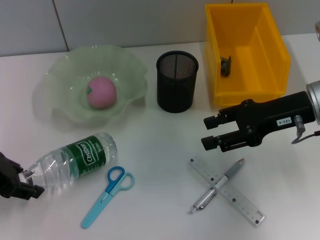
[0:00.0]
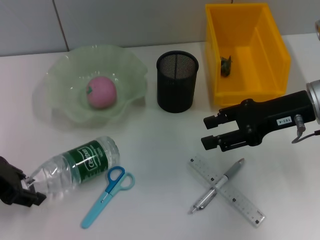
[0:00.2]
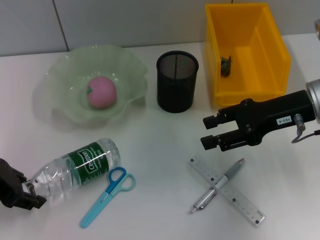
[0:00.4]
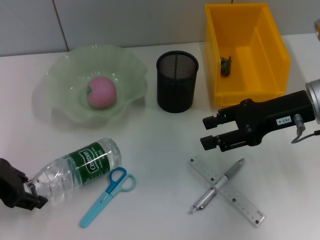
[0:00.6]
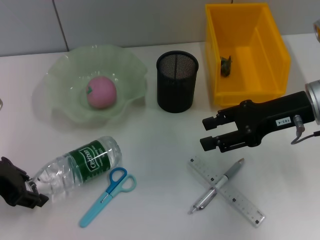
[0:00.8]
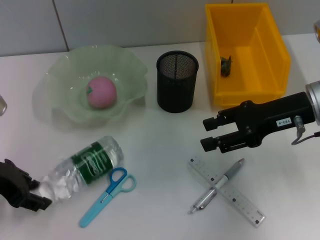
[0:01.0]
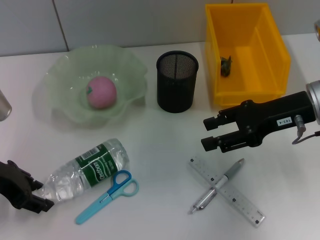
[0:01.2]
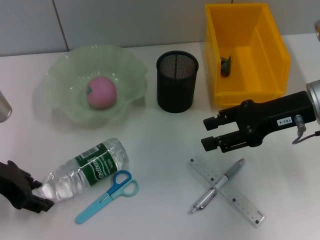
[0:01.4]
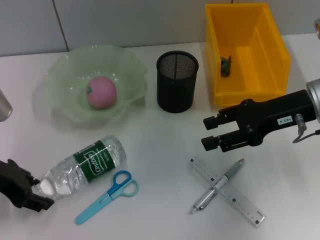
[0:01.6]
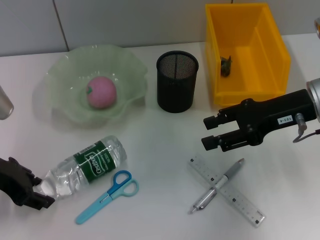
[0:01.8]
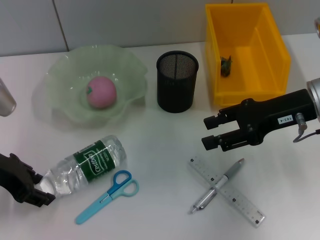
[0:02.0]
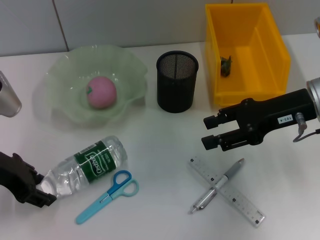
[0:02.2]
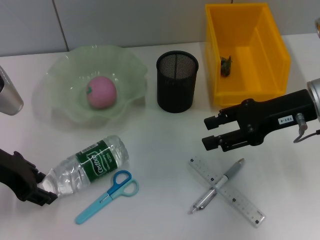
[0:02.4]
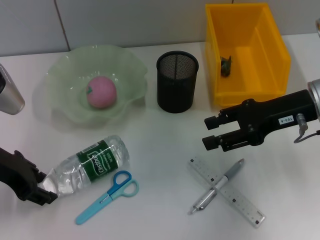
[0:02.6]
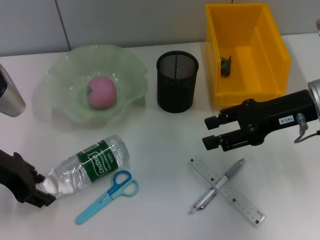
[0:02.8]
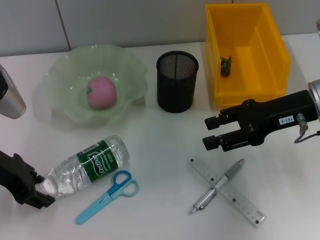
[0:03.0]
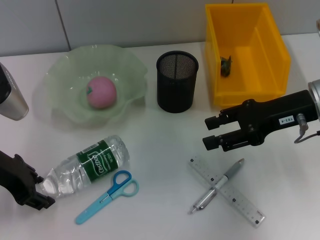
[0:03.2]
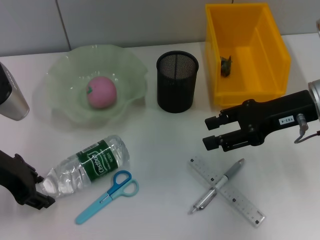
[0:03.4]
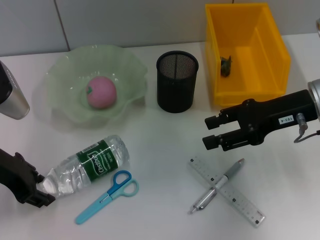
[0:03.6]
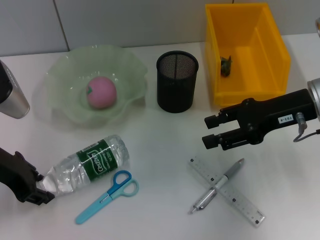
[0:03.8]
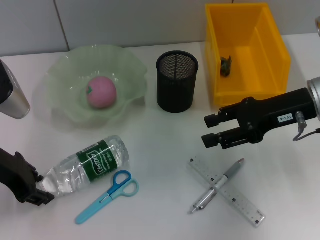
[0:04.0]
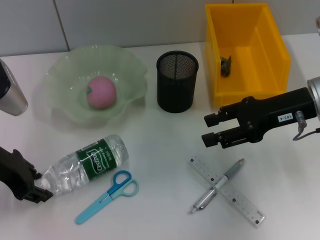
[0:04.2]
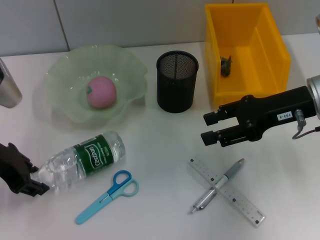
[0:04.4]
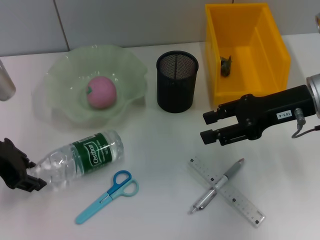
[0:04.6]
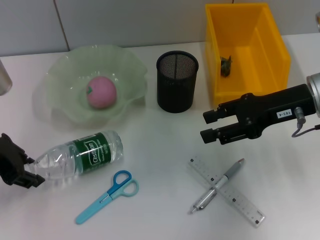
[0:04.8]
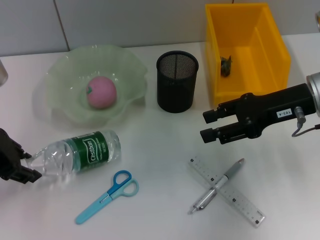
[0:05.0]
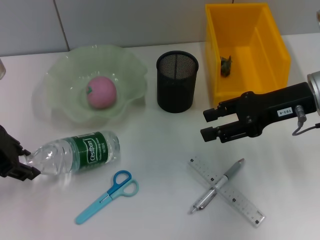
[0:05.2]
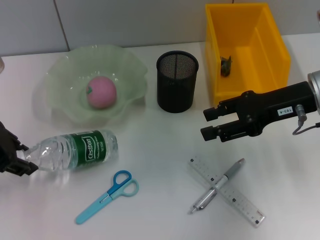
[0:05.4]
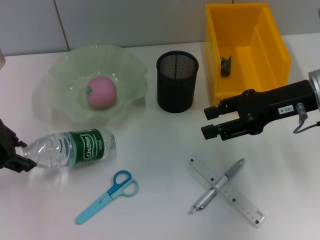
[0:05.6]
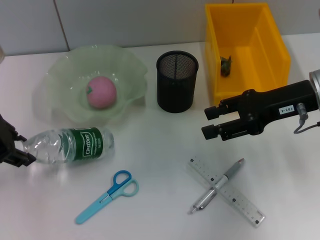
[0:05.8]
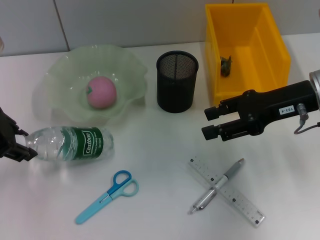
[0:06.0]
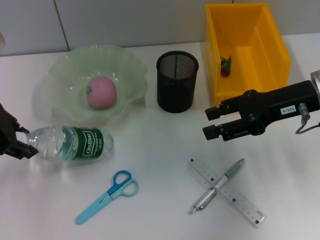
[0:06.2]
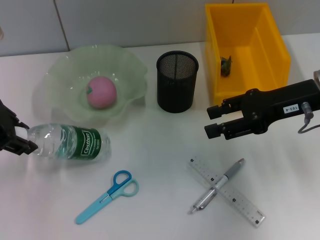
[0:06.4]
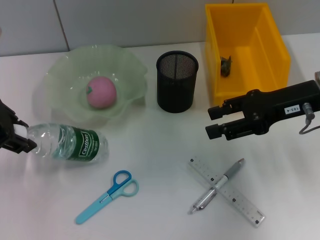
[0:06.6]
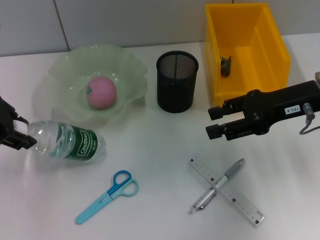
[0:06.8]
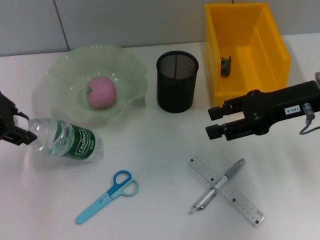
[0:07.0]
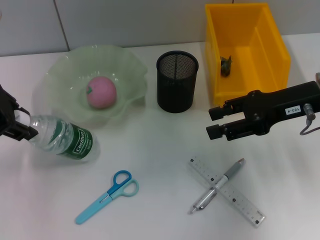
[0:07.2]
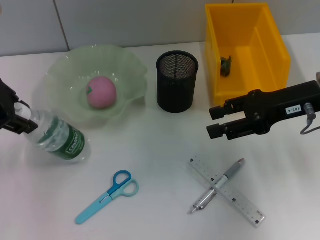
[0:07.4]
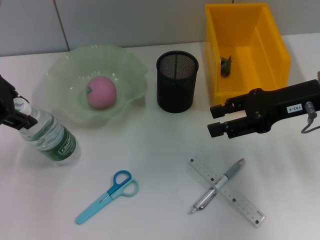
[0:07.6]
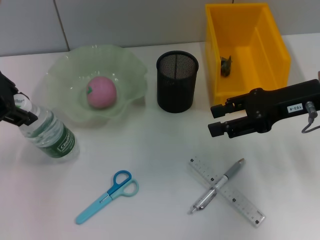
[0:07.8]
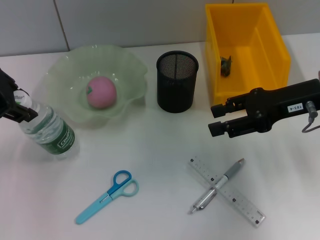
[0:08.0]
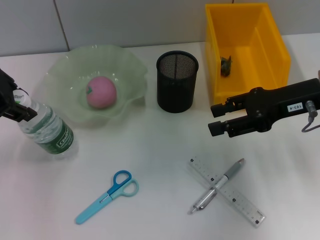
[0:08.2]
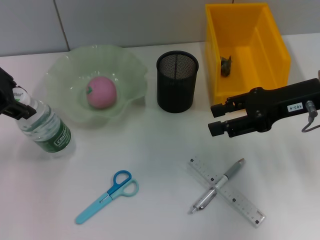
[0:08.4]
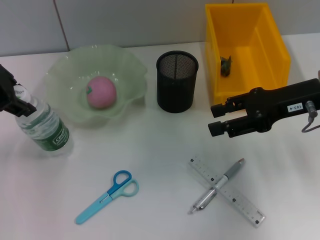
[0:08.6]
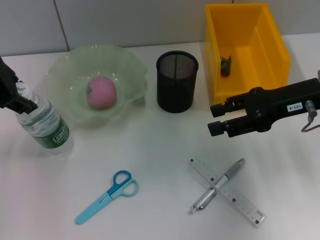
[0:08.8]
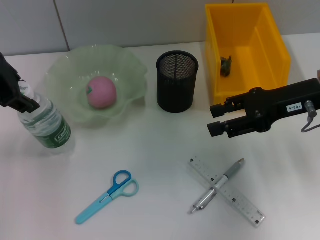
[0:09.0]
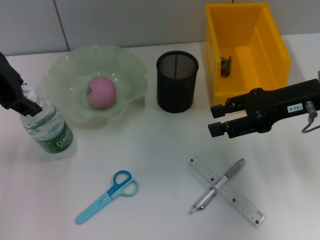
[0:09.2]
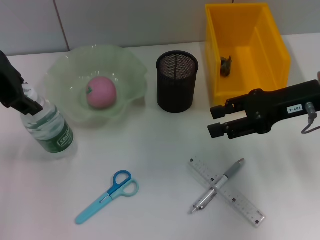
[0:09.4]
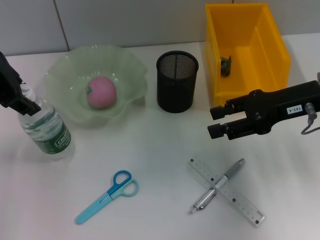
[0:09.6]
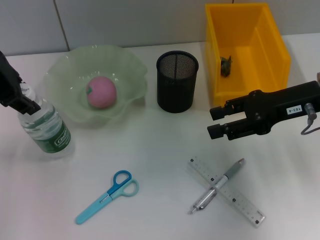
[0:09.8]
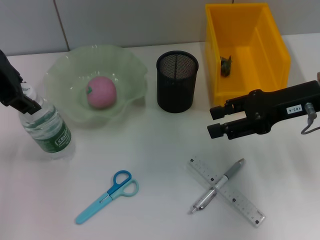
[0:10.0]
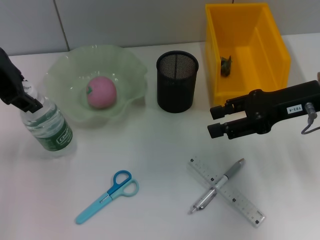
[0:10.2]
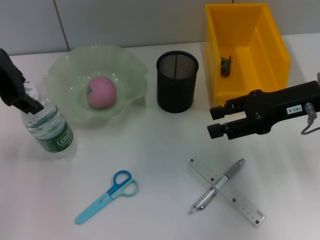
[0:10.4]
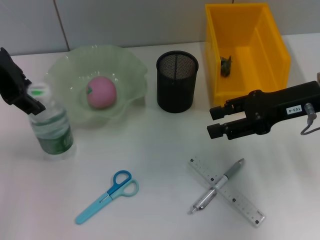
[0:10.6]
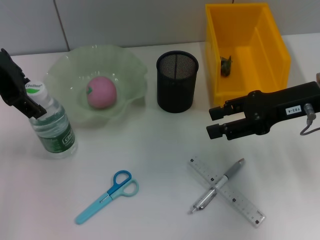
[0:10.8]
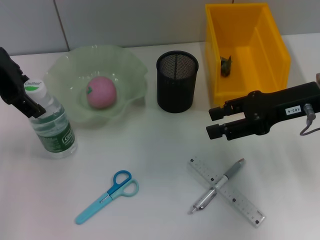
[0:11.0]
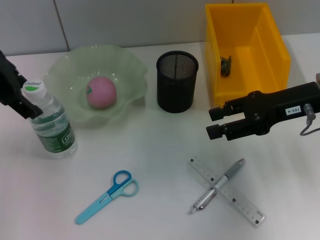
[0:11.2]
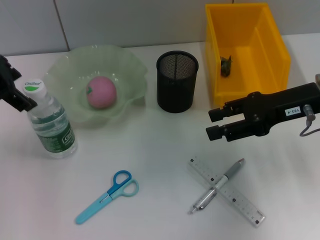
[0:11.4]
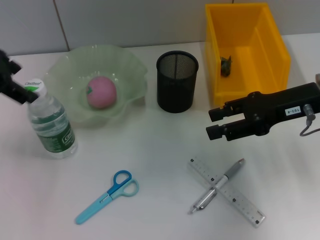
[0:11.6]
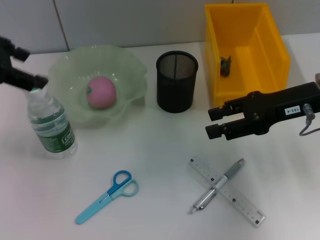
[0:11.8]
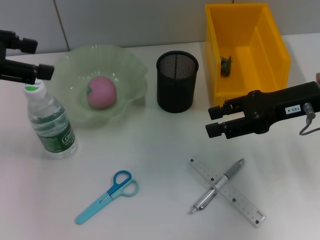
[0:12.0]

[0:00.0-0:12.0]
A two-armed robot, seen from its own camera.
Step, 0:00.0 to 0:04.4: Grab the water bottle with the left hand.
Step, 0:04.8 to 0:11.2: Place the water bottle on the table with the left hand.
0:00.0 to 0:04.4: The grippers make only small movements.
0:04.4 to 0:06.0: The left gripper heads upward, covering about 5 cm.
0:06.0 to 0:07.6: There are only small adjustments of the grippers.
0:07.6 to 0:09.0: The grippers make only small movements.
0:09.0 to 0:10.4: Both grippers stay put.
0:10.4 to 0:12.0: The left gripper shifts roughly 10 cm to the left, and opens.

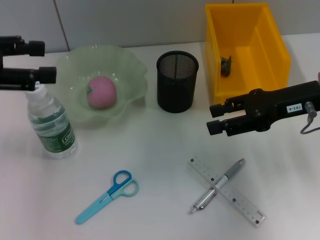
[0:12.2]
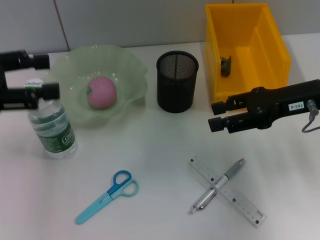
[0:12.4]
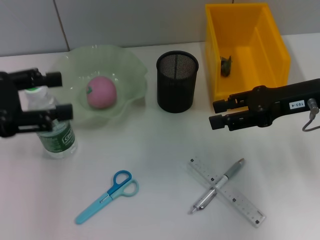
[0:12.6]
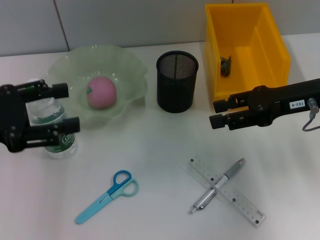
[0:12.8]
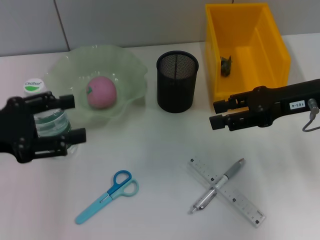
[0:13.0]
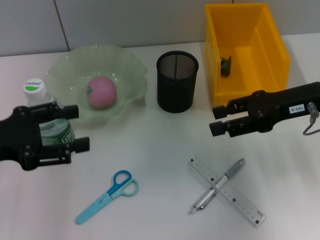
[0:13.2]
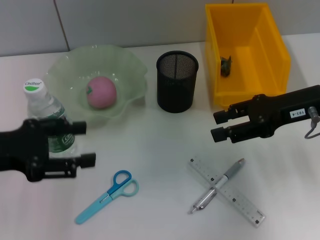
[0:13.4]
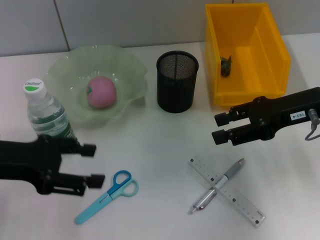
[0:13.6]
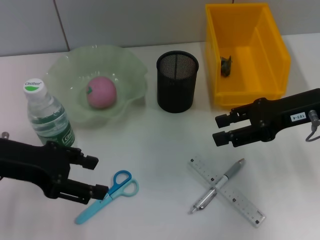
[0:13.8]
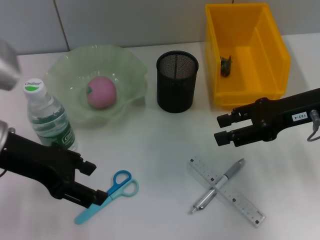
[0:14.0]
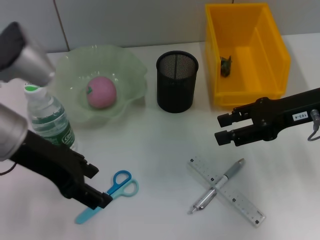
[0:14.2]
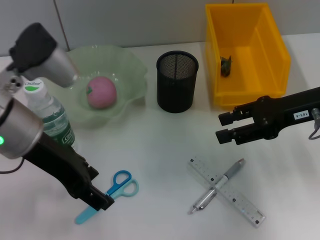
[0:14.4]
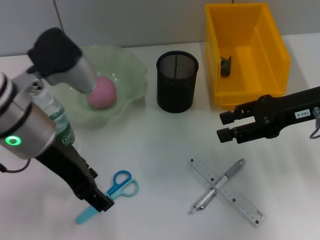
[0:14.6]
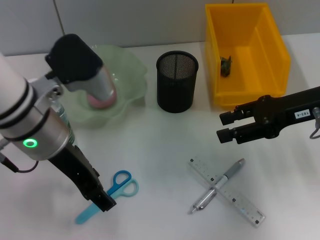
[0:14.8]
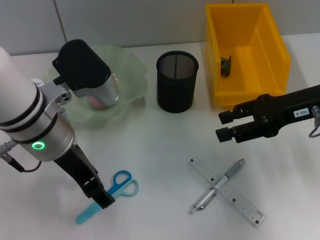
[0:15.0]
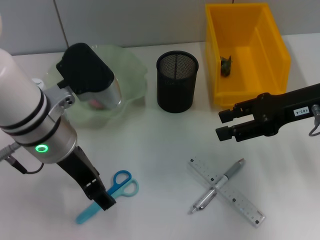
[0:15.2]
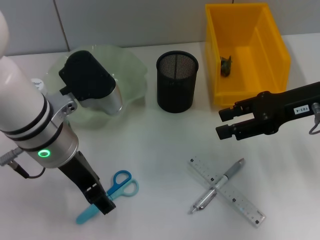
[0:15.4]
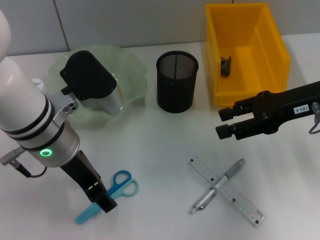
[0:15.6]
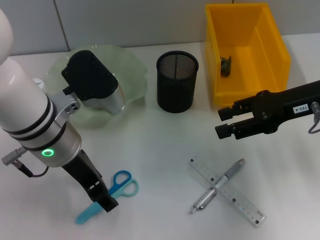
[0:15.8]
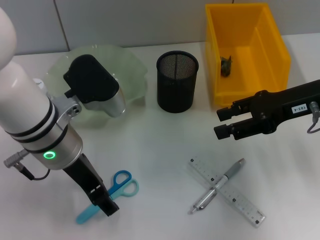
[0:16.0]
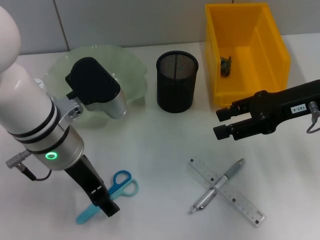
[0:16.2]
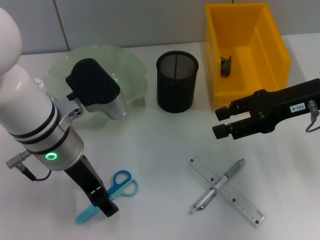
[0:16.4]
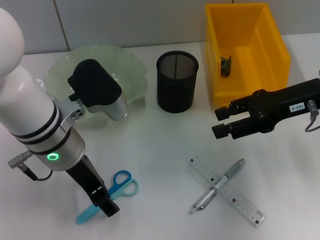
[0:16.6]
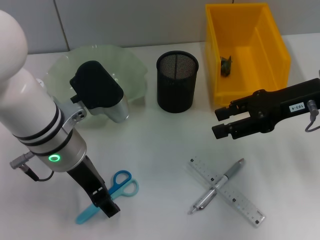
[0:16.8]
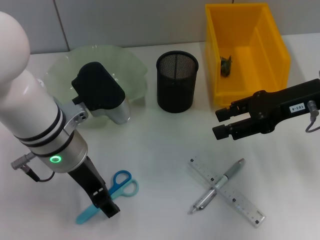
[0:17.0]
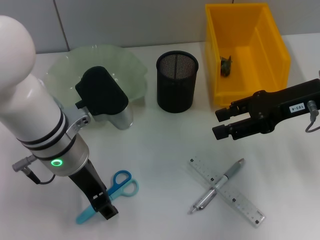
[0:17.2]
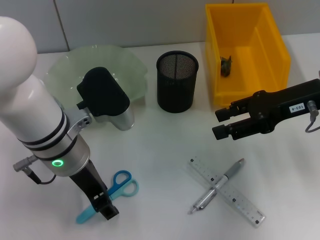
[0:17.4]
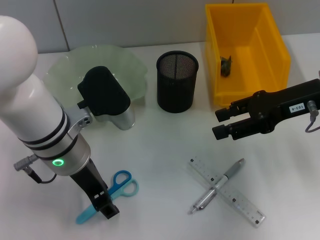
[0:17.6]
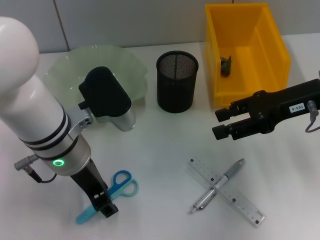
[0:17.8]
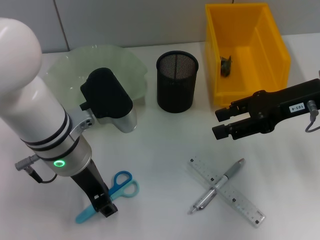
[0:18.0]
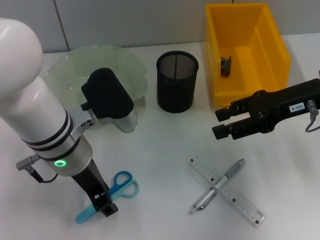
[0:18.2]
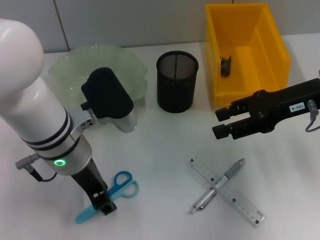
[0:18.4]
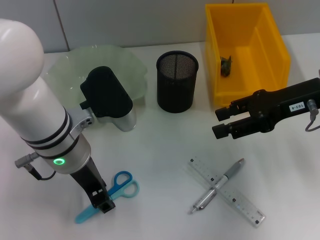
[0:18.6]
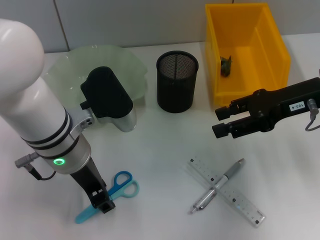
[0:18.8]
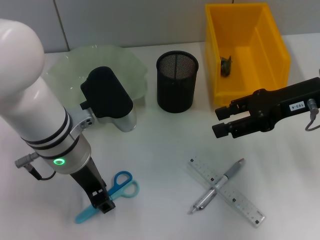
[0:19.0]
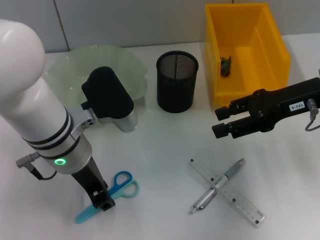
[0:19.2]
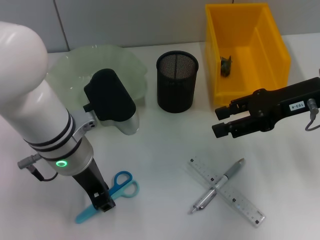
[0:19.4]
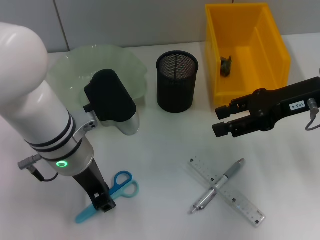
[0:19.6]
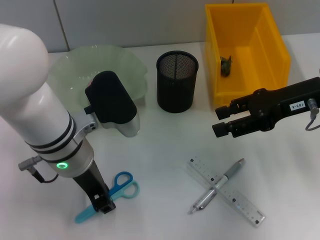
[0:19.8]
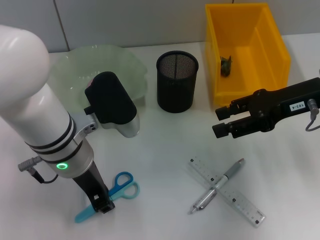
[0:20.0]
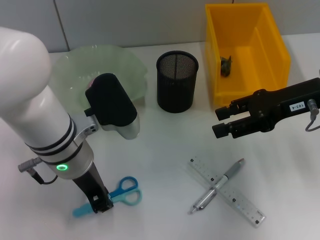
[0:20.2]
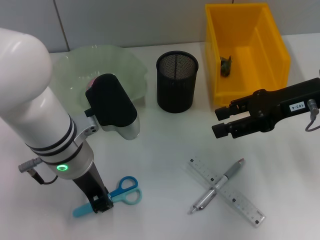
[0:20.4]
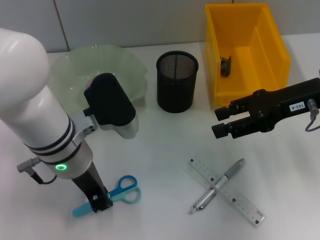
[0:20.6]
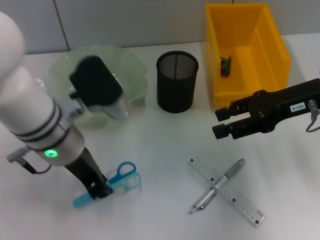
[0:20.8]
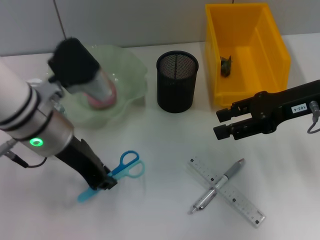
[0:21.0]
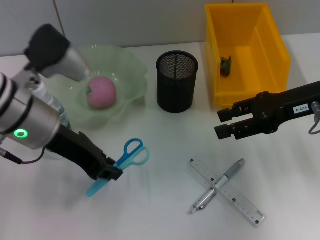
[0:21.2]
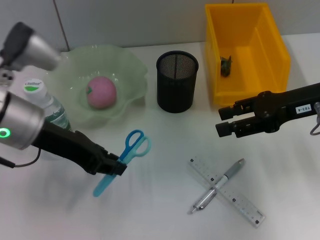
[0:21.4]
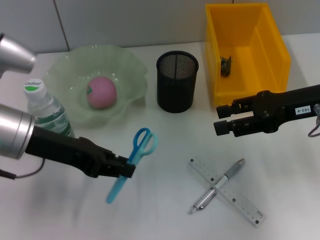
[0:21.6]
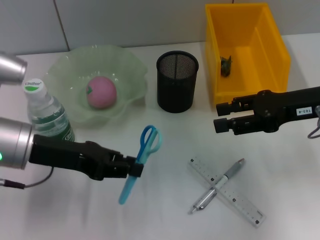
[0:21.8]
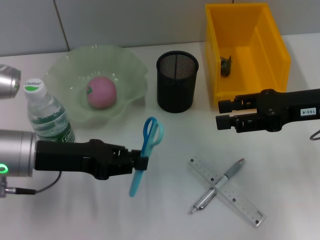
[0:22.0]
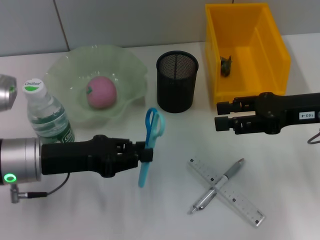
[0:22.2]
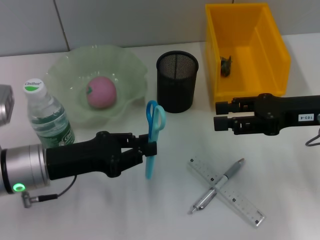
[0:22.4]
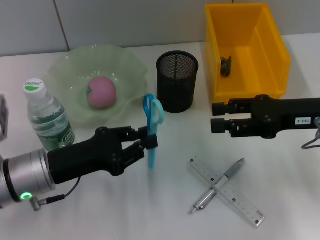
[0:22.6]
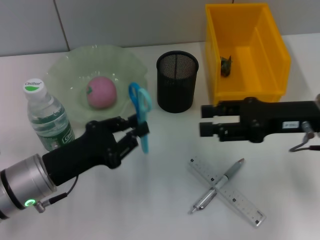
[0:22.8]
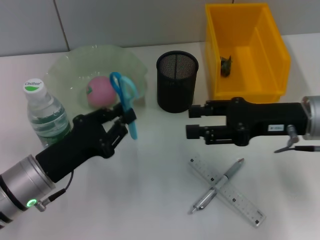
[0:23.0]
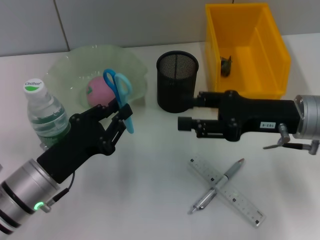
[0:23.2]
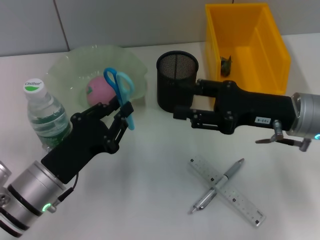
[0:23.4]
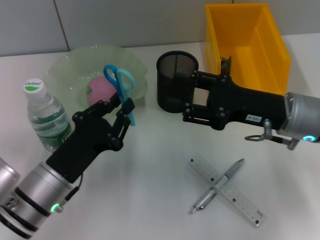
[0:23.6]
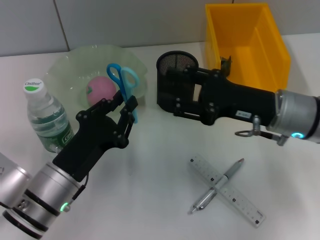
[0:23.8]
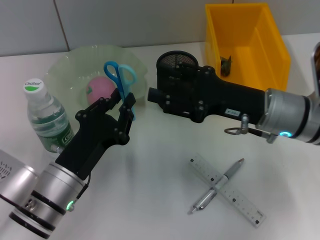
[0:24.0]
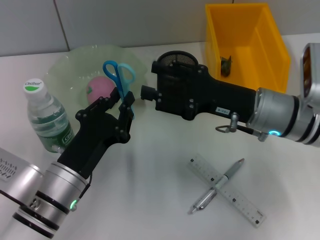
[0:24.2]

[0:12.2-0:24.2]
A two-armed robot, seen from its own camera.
Step, 0:12.2 to 0:20.0: Grab the blue scissors with the left hand.
0:12.2 to 0:13.8: The left gripper heads downward and to the right, covering roughly 10 cm.
0:13.8 to 0:15.2: The left gripper shifts about 10 cm to the right.
0:15.2 to 0:16.6: The grippers stay close to where they were, moving slightly.
0:16.6 to 0:18.2: The left gripper closes.
0:18.2 to 0:19.8: Both grippers stay put.
0:19.8 to 0:21.2: The left gripper goes approximately 5 cm to the left.
0:21.2 to 0:22.6: The left gripper heads downward and backward, covering about 10 cm.
0:22.6 to 0:24.2: The right gripper travels to the left by roughly 10 cm, while the left gripper goes roughly 5 cm to the right.
